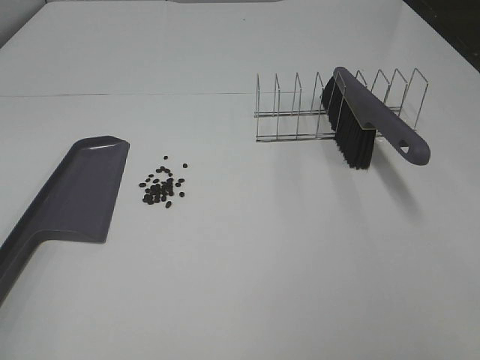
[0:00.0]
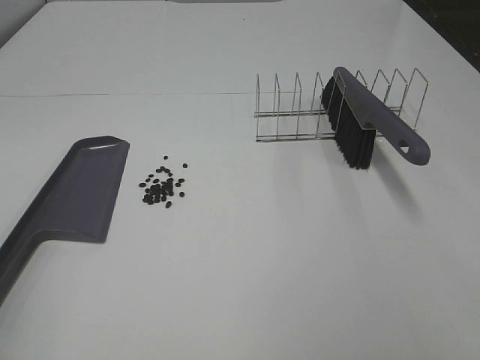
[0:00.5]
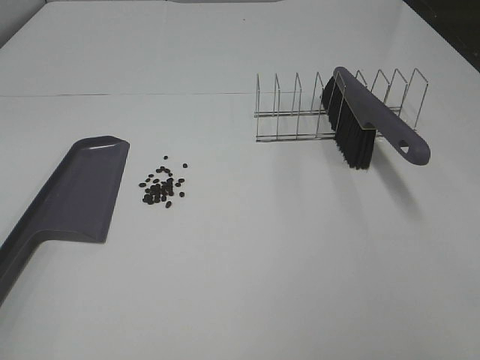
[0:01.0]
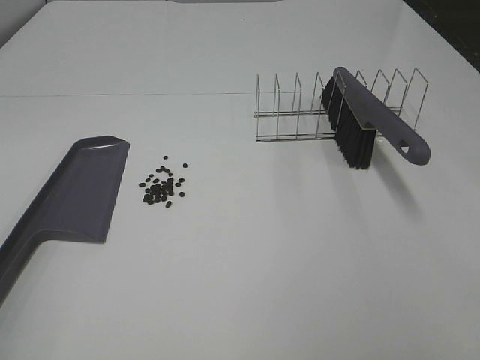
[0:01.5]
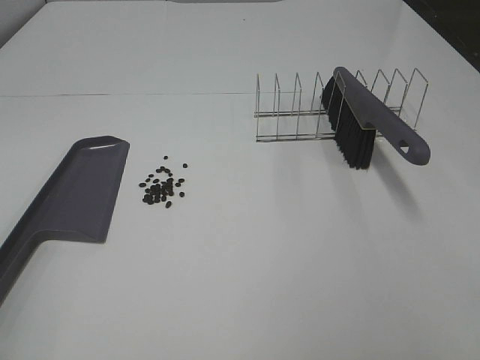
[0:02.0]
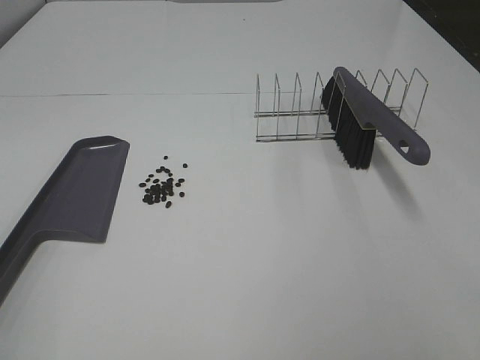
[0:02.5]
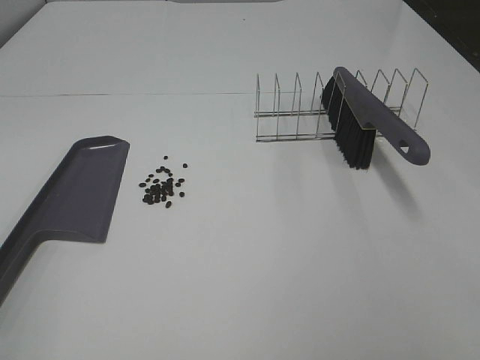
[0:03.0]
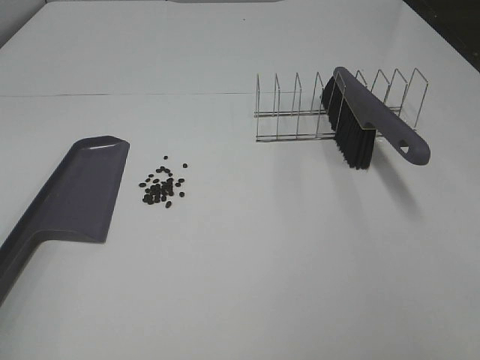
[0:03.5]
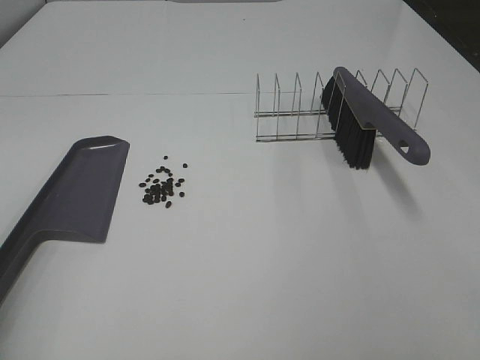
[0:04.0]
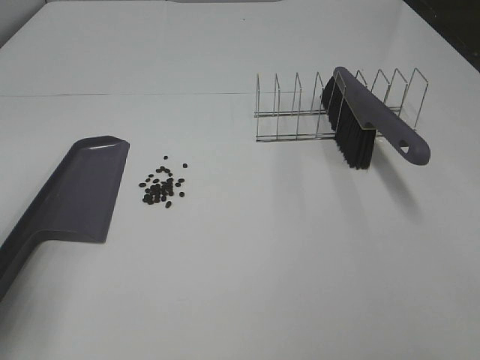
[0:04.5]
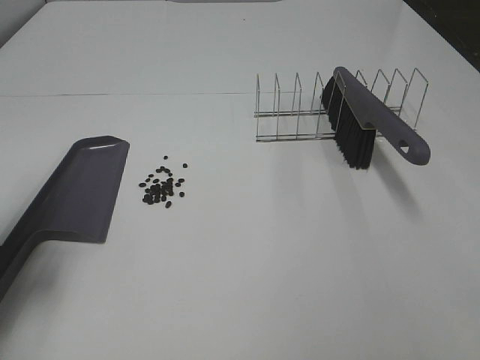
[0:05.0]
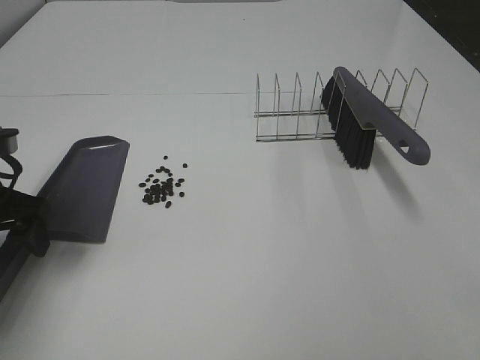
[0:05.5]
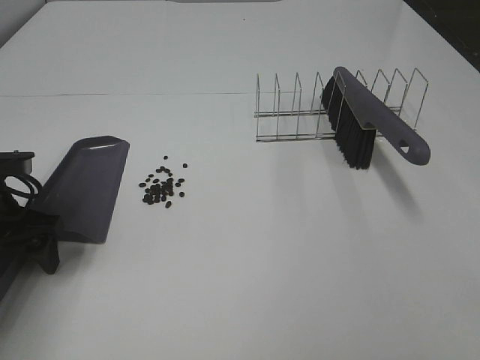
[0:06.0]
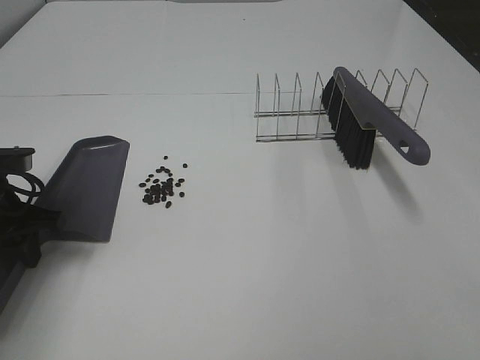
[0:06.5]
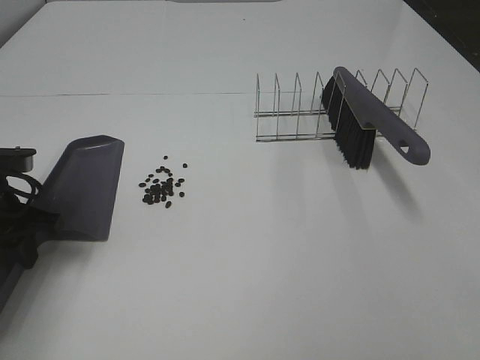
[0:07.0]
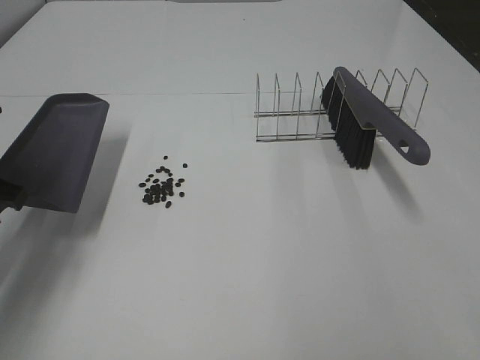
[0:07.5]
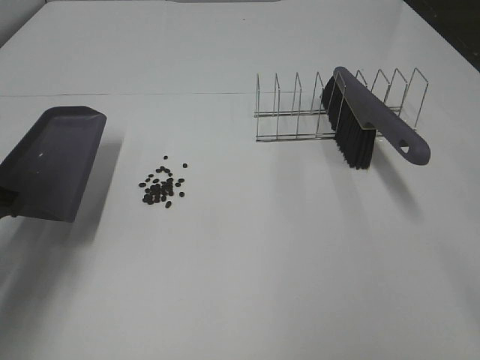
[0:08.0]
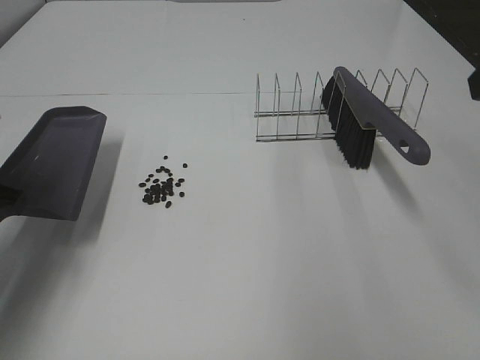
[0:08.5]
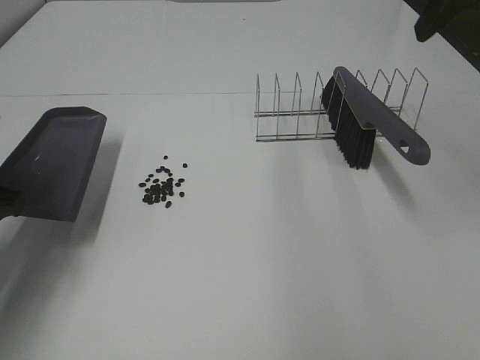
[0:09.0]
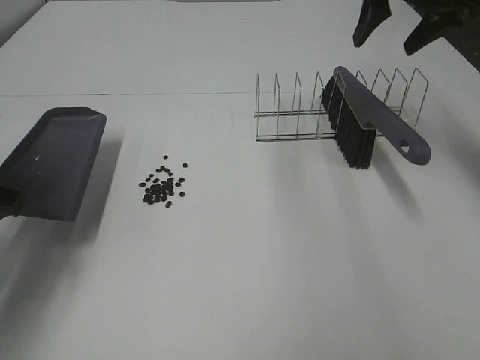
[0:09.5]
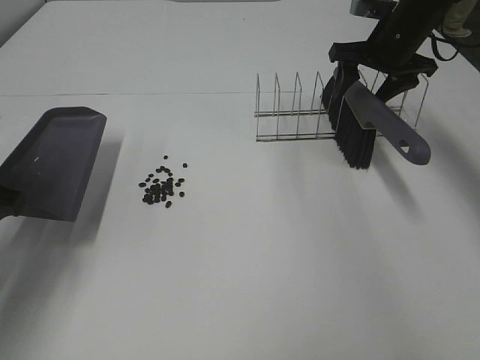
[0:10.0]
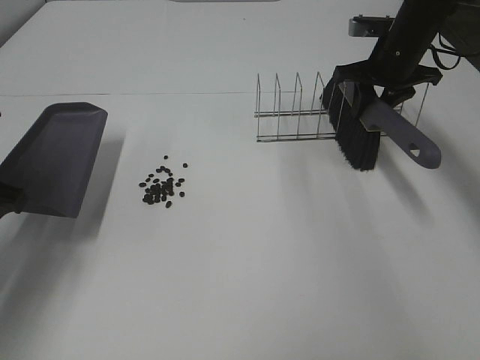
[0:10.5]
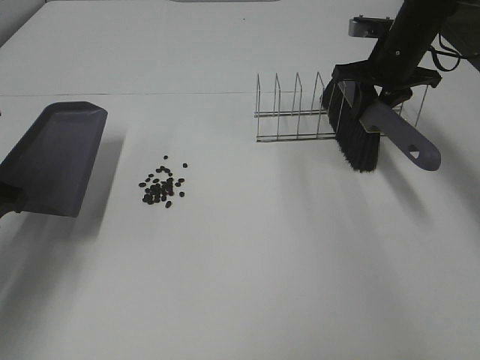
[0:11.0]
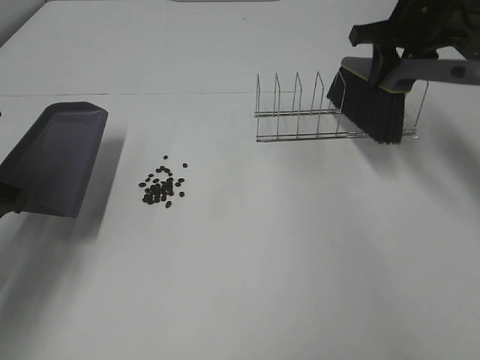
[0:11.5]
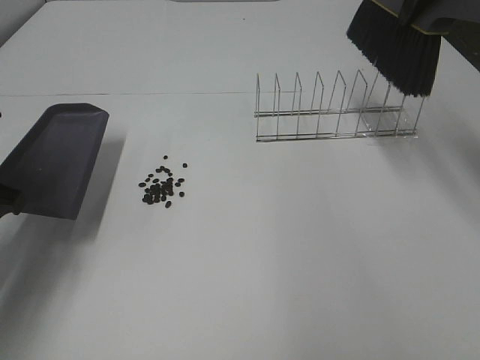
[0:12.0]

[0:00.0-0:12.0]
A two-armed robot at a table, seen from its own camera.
Task of the whole recording: Sweep Coffee Bean.
Step, 0:00.0 to 0:06.5: Left hand: grab the dustpan.
Step, 0:07.5 to 0:10.5: Right hand:grab the broom.
0:00.0 to 0:02.0: The two grippers keep their place.
0:04.0 to 0:06.0: The left gripper shifts about 25 cm forward and downward.
0:06.0 to 0:08.0: The left gripper travels upward by approximately 5 cm, and closes its fingers.
0:08.0 to 0:10.0: The right gripper is displaced forward by about 40 cm.
0:10.0 to 0:12.0: The right gripper is displaced upward and backward by about 15 cm, and closes its fingers.

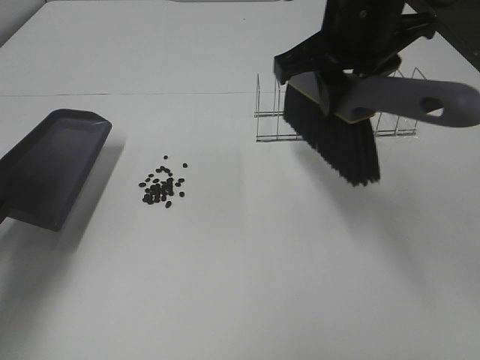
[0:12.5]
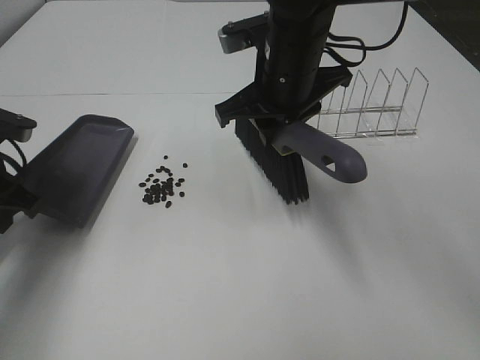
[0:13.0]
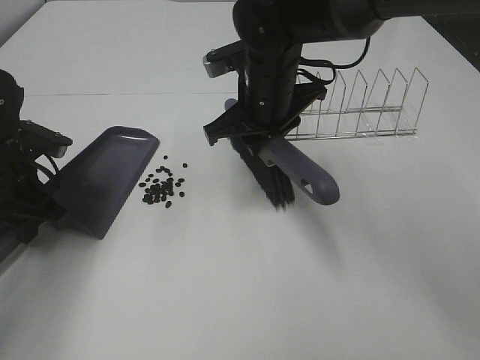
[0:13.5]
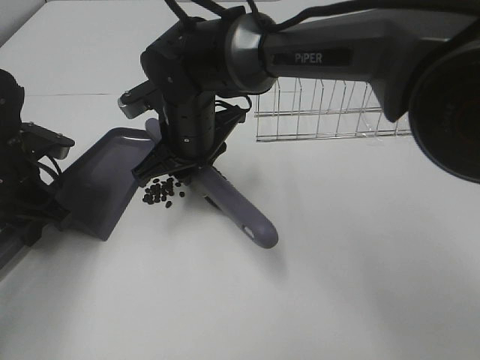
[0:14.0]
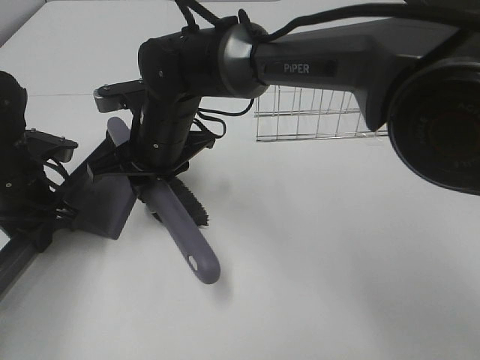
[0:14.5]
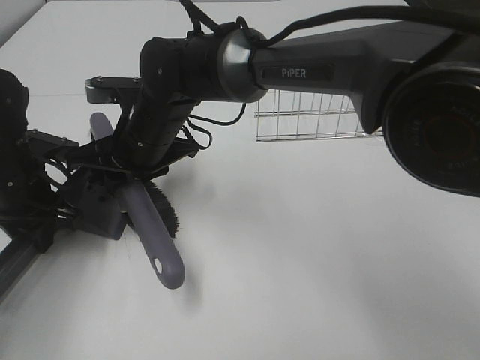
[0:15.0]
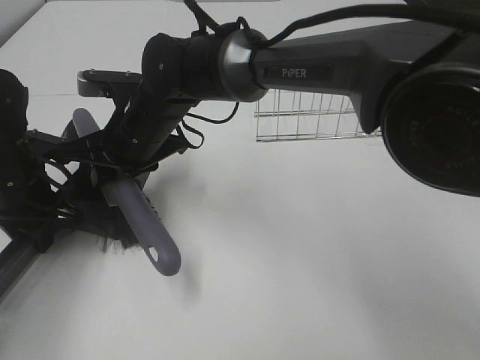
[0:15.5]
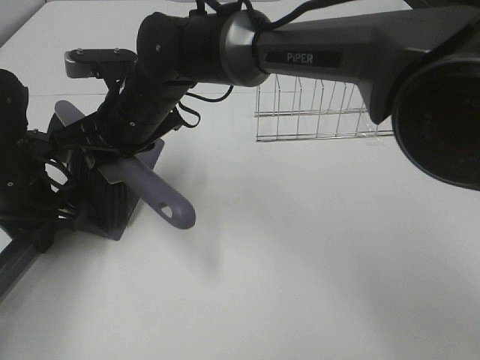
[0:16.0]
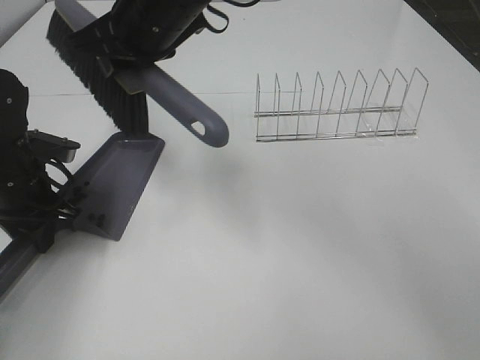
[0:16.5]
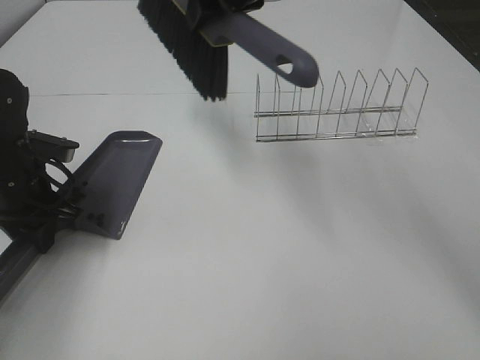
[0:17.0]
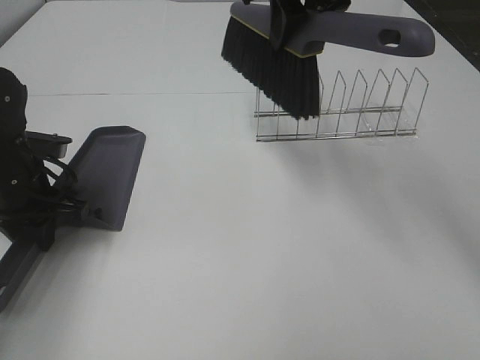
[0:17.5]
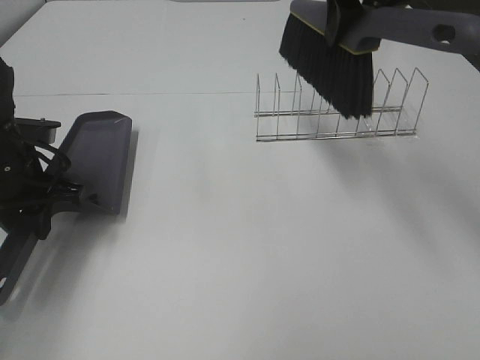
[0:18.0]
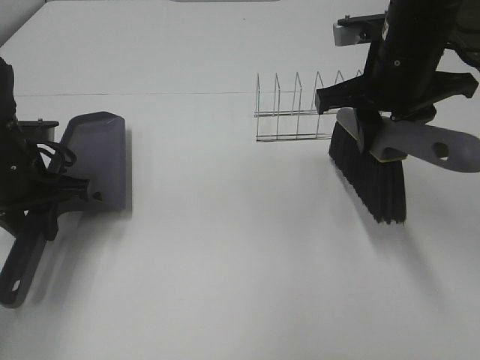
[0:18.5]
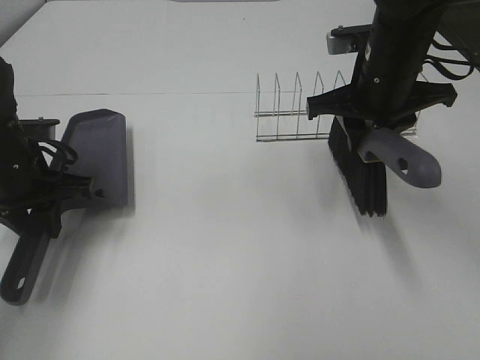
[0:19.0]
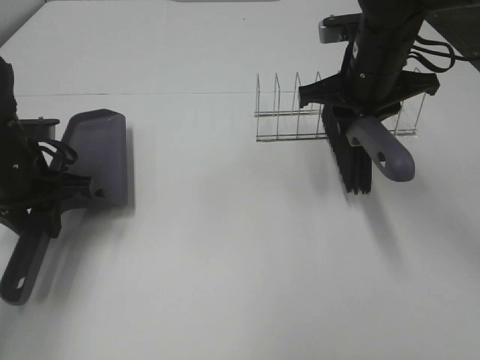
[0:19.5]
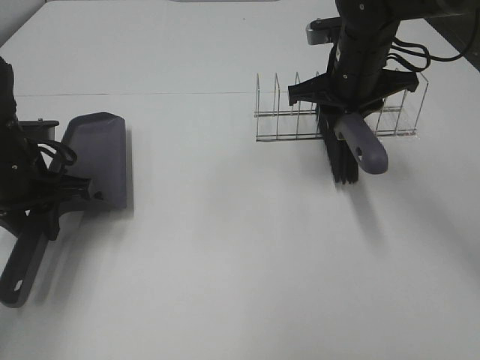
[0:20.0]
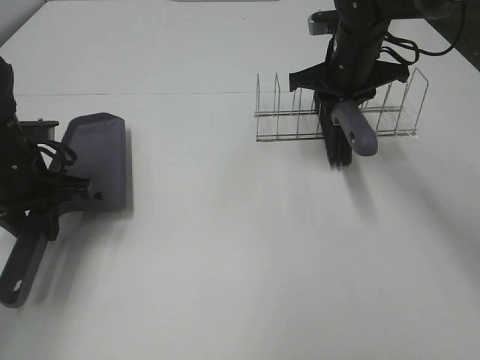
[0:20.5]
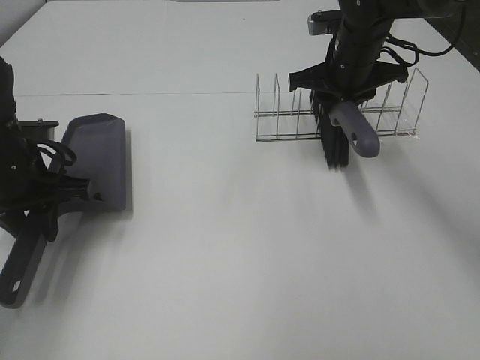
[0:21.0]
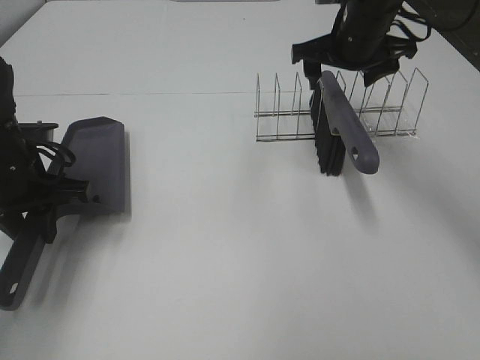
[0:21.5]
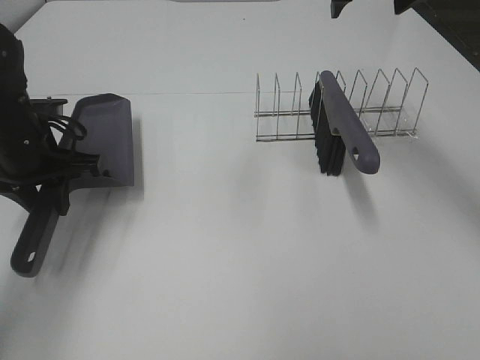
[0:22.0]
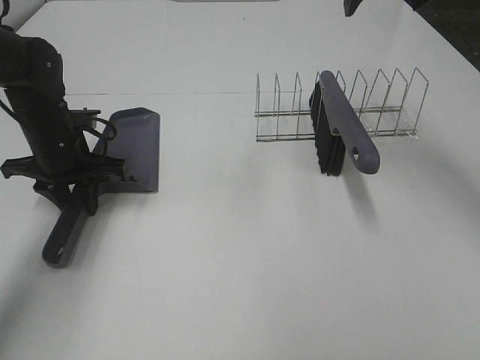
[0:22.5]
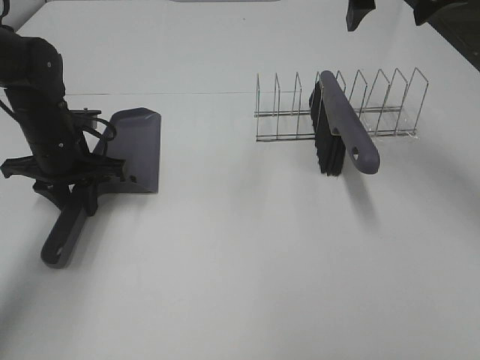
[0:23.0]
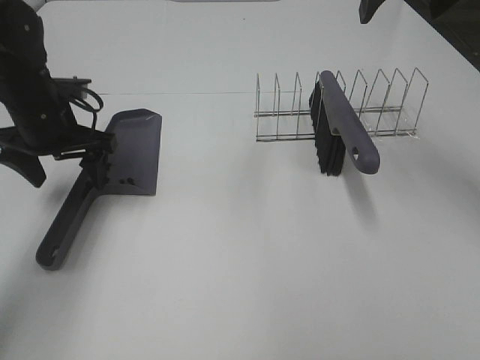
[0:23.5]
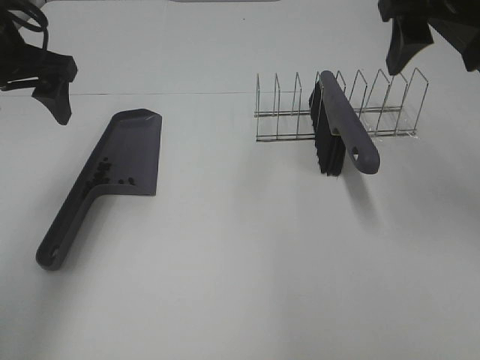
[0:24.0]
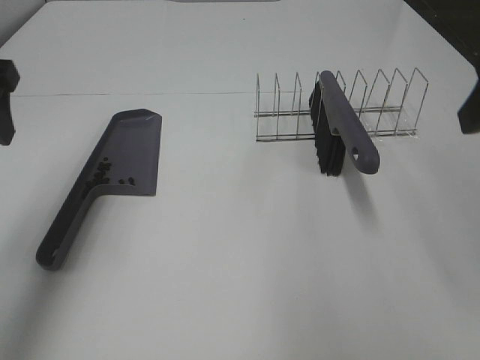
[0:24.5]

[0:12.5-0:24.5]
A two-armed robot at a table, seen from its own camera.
Task of the whole recording: Sweep Coffee Bean.
Step, 0:12.5 to 0:16.0: Right hand:sweep the coffee beans into the dustpan.
Step, 0:16.5 to 0:21.0: Right hand:place the broom on the rack.
Step, 0:21.5 to 0:23.0: Left hand:place the dustpan on the table.
0:12.5 to 0:14.5: The left gripper moves downward, roughly 5 cm; the right gripper heads to the left and downward, covering some 25 cm.
0:14.5 to 0:16.5: The right gripper goes about 15 cm upward.
0:16.5 to 0:18.5: The right gripper moves to the right, some 25 cm.
0:18.5 to 0:20.5: The right gripper heads forward and downward, covering some 15 cm.
0:20.5 to 0:22.5: The left gripper shifts some 5 cm forward; the right gripper moves upward and backward, some 20 cm, and opens up.
0:22.5 to 0:24.5: The right gripper travels backward by approximately 20 cm. The left gripper goes about 20 cm upward and backward, and opens its fingers.

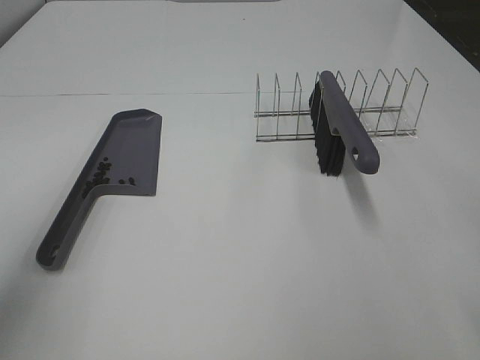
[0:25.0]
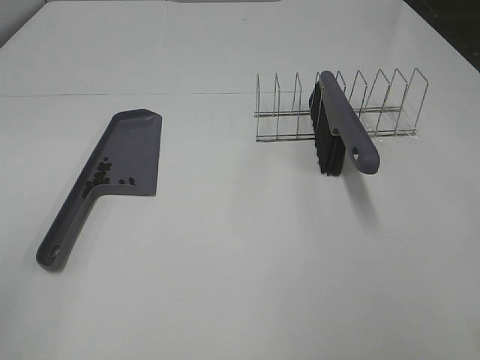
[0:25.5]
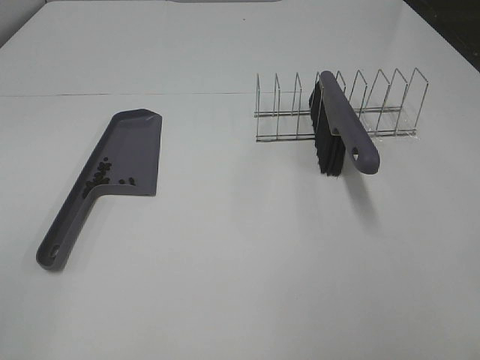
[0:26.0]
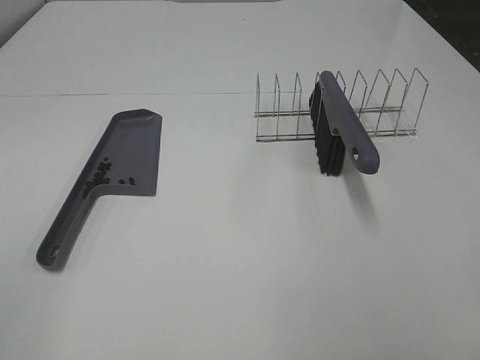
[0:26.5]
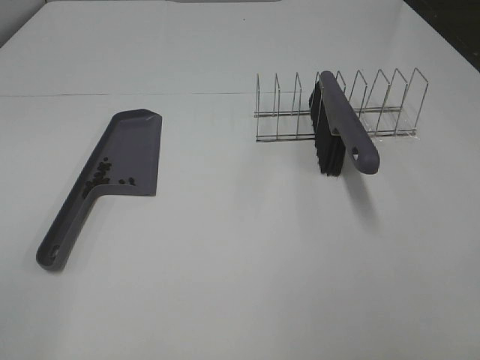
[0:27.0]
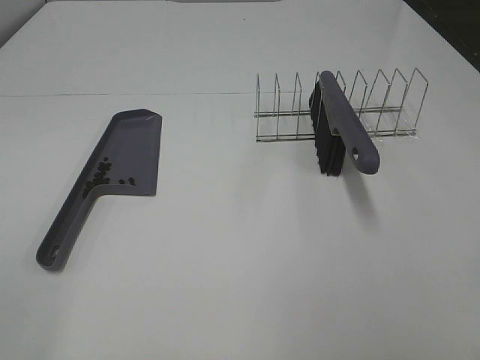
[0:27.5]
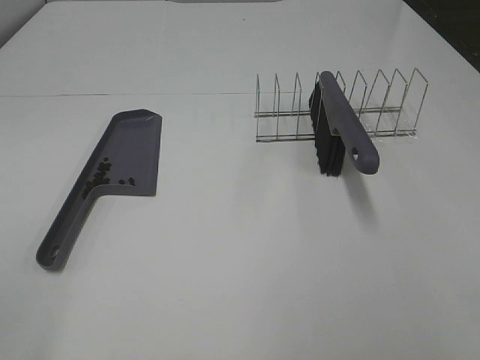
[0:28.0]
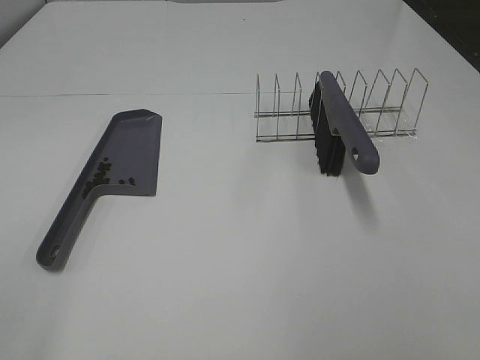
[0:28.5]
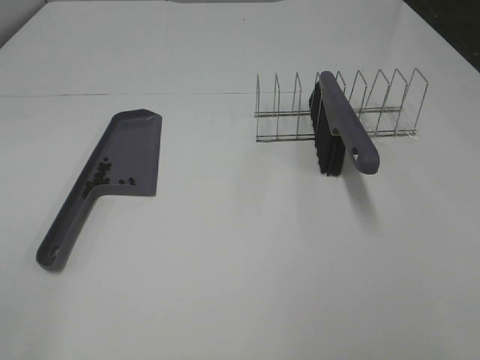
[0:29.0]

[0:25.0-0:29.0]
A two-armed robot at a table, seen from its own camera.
Task of the whole recording: Sweep Coffee Bean.
0:25.0 to 0:27.0: The left gripper is displaced backward by about 15 cm.
